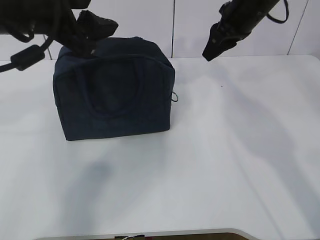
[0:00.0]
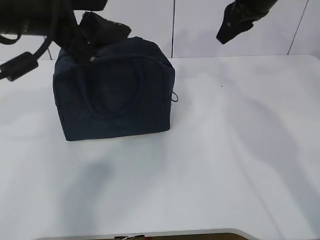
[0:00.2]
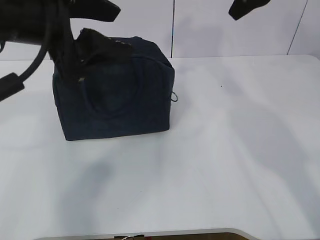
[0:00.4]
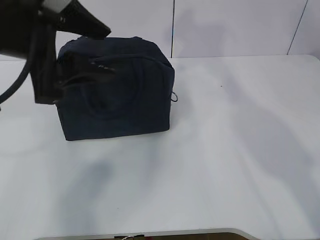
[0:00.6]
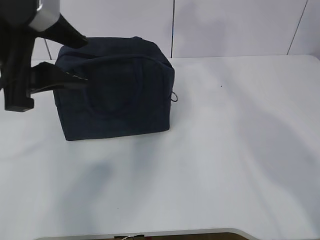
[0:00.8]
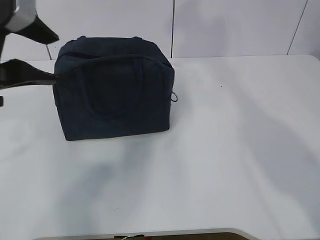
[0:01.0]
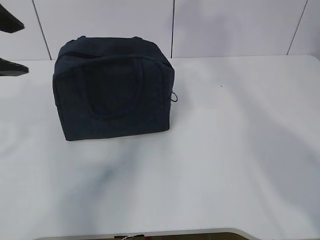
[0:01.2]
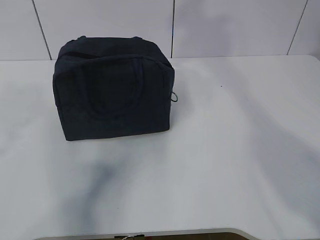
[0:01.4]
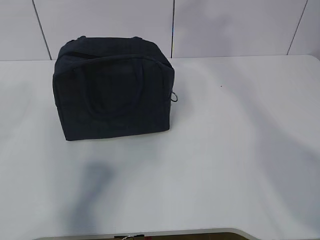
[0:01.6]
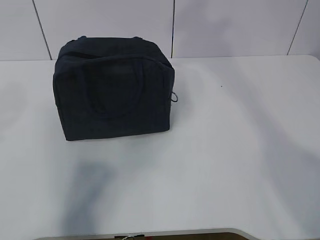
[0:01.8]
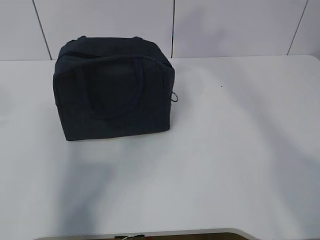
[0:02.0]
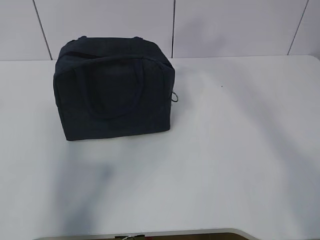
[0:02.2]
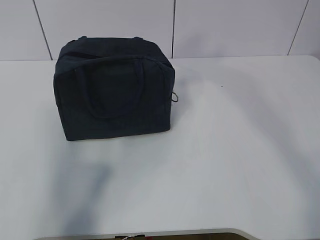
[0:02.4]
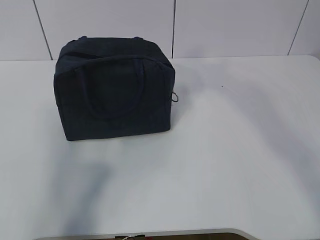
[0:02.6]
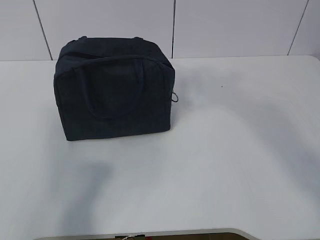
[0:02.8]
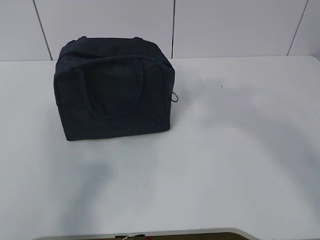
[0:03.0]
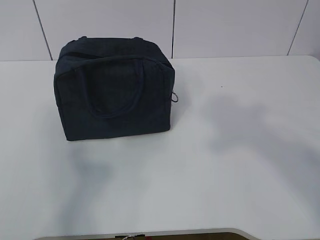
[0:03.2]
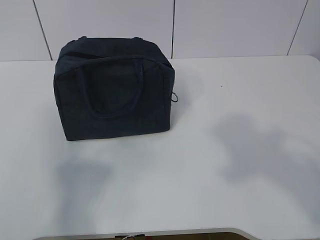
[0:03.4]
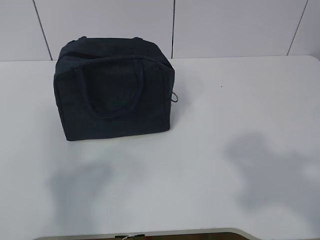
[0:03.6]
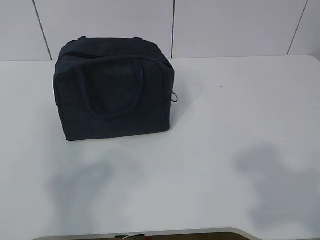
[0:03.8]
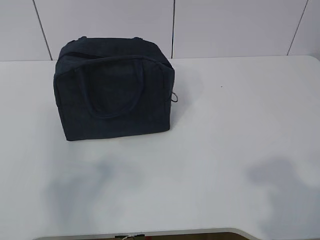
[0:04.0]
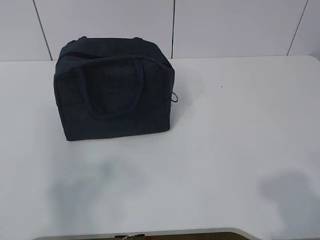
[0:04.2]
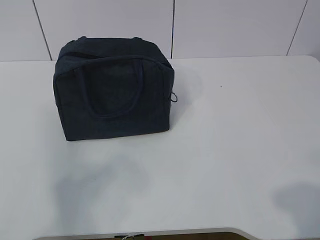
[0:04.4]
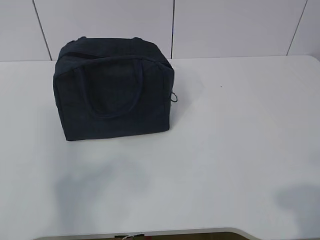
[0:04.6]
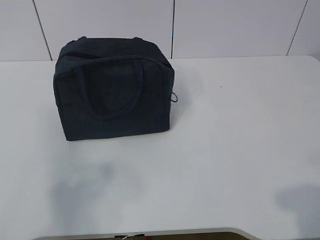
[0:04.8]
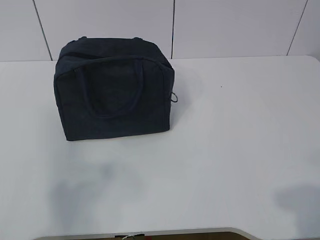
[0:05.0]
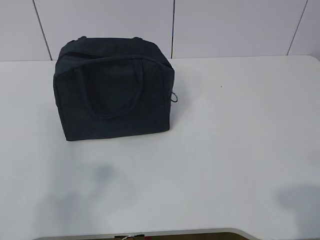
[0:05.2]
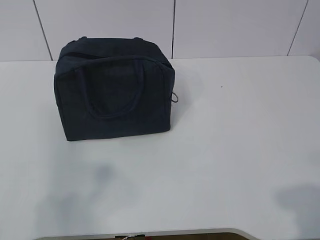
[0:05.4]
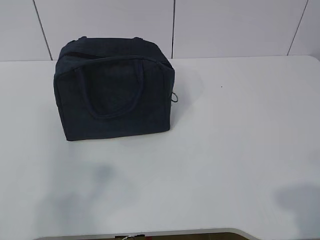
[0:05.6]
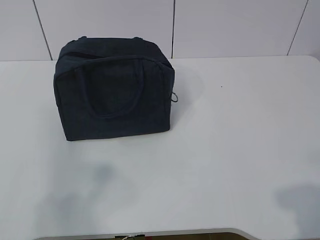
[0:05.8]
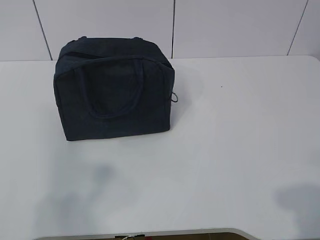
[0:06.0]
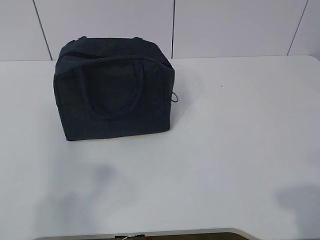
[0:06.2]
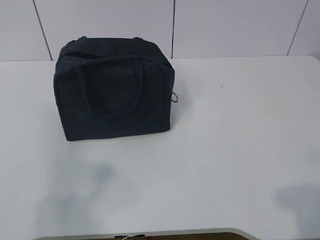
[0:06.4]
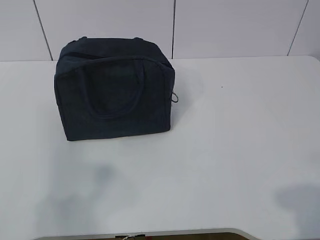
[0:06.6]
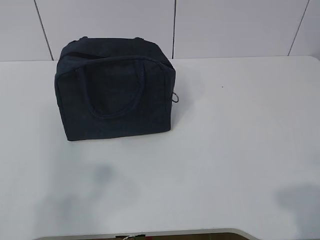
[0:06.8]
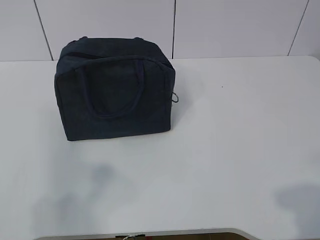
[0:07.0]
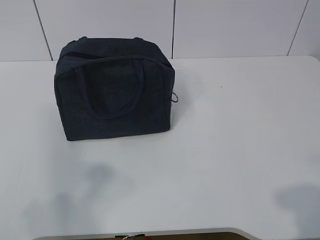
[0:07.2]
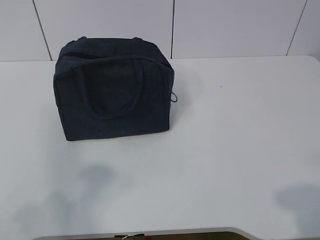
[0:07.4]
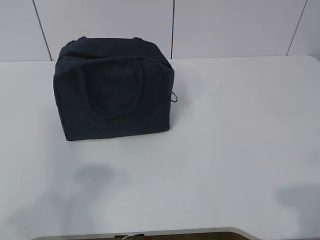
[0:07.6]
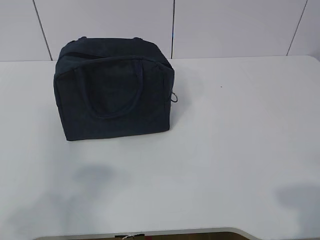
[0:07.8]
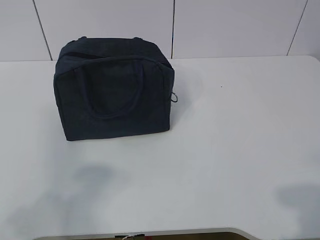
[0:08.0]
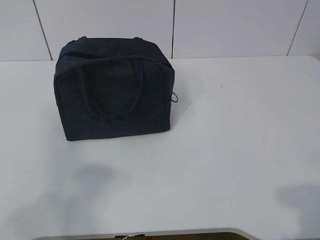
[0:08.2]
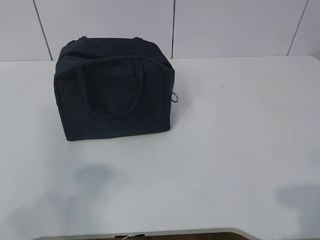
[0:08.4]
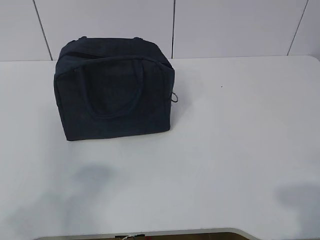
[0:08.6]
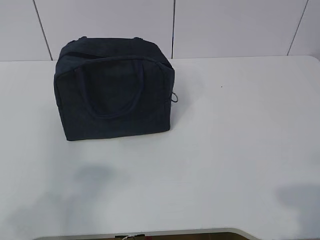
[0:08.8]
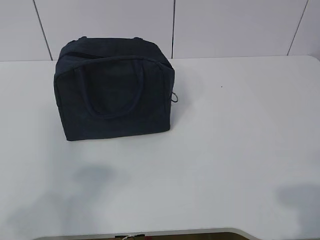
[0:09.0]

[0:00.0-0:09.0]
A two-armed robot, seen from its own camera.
0:00.0 to 0:01.6: The left gripper goes about 15 cm backward, to the left and upward. Meanwhile the right gripper moves upward and backward, some 30 cm.
0:01.6 to 0:03.0: The right gripper shifts about 25 cm backward. Meanwhile the left gripper shifts roughly 15 cm backward and to the left.
0:03.0 to 0:04.4: The right gripper goes approximately 25 cm downward.
0:07.6 to 0:09.0: Neither gripper changes place.

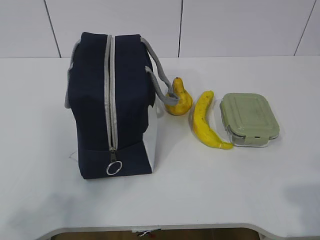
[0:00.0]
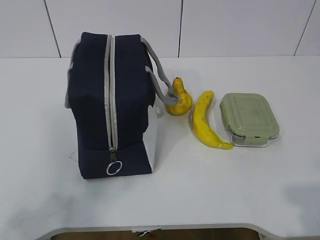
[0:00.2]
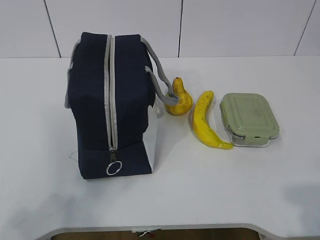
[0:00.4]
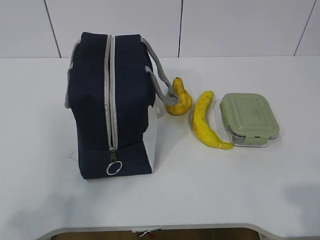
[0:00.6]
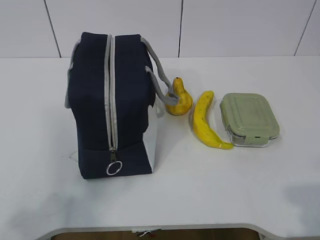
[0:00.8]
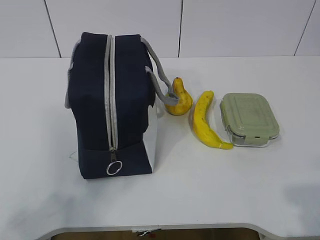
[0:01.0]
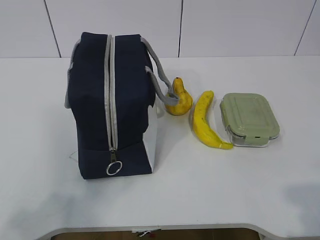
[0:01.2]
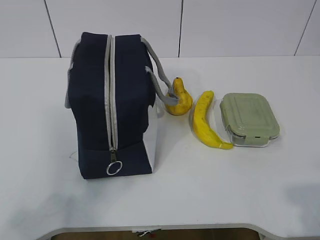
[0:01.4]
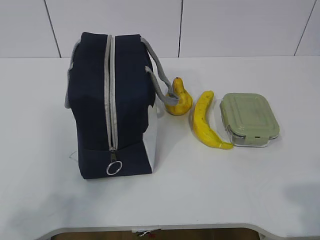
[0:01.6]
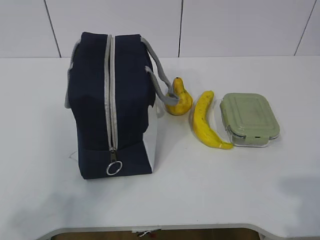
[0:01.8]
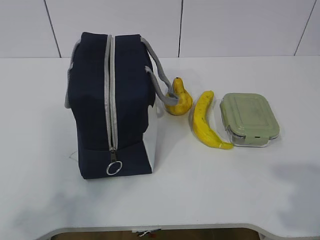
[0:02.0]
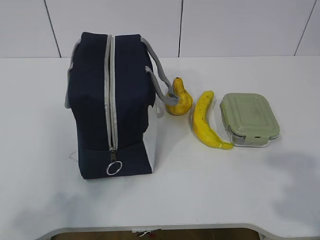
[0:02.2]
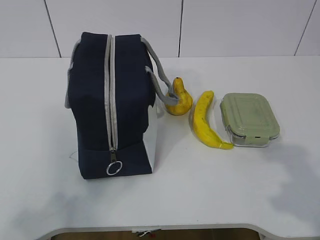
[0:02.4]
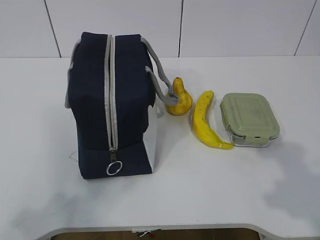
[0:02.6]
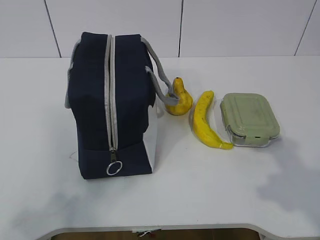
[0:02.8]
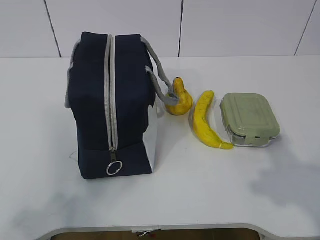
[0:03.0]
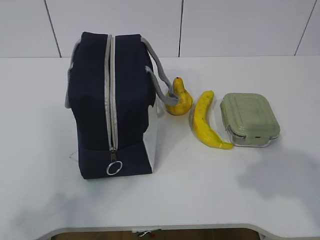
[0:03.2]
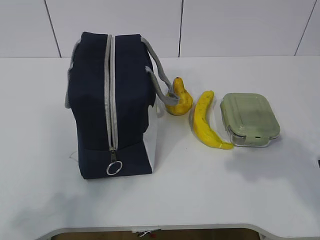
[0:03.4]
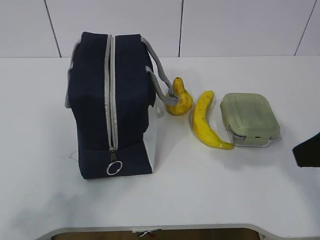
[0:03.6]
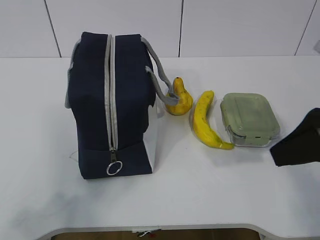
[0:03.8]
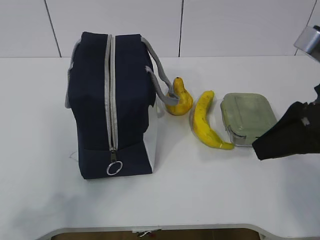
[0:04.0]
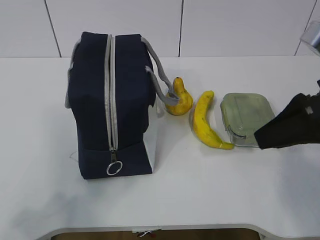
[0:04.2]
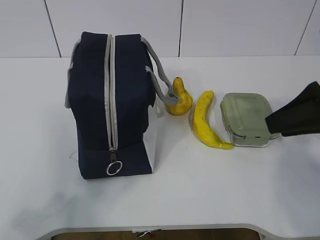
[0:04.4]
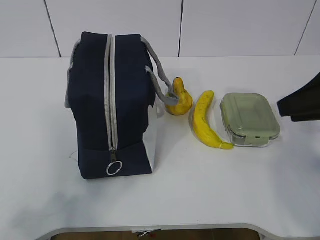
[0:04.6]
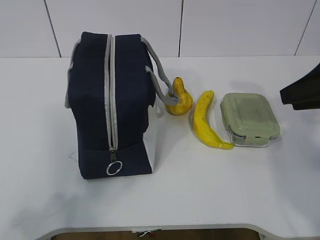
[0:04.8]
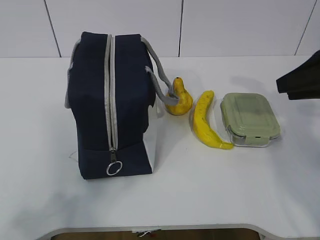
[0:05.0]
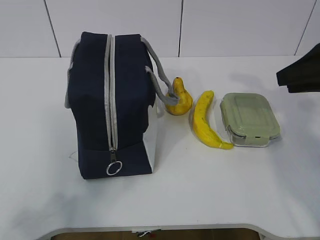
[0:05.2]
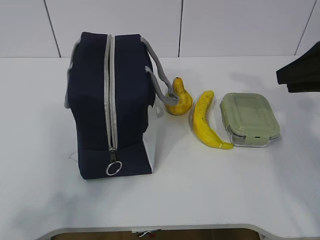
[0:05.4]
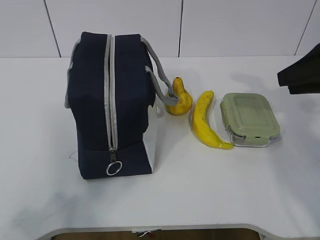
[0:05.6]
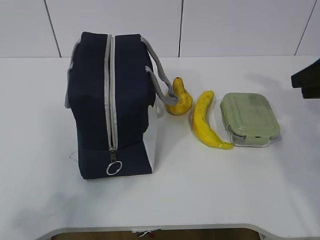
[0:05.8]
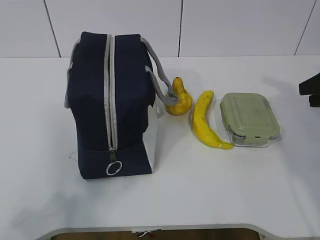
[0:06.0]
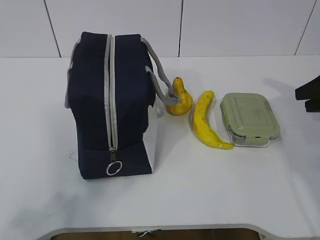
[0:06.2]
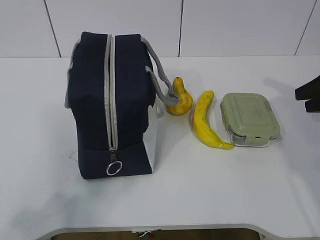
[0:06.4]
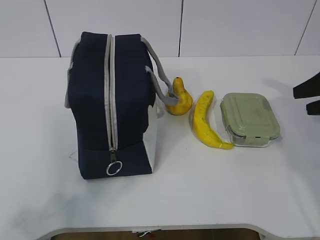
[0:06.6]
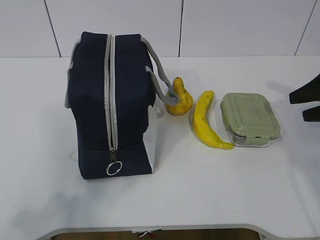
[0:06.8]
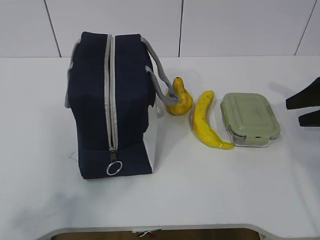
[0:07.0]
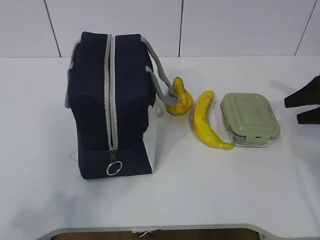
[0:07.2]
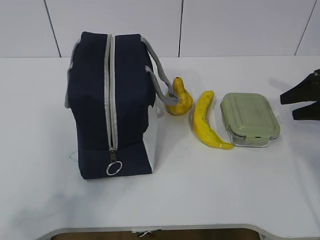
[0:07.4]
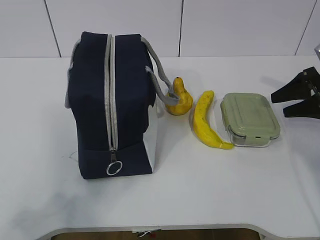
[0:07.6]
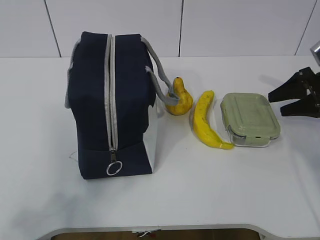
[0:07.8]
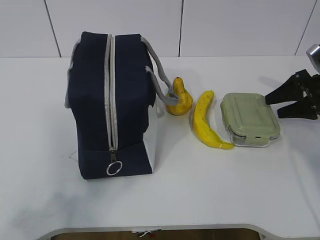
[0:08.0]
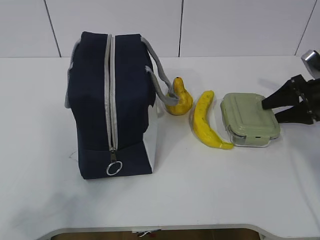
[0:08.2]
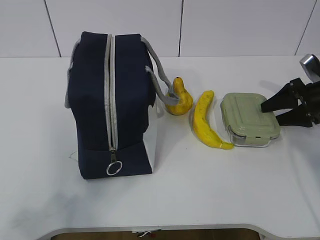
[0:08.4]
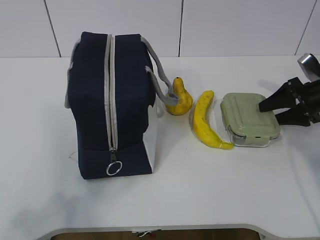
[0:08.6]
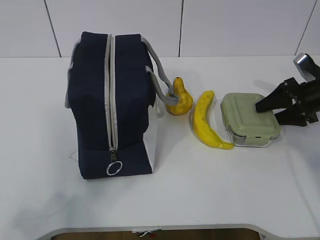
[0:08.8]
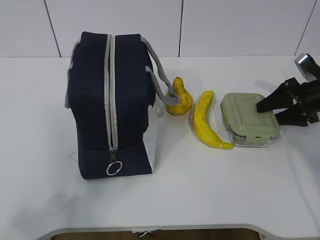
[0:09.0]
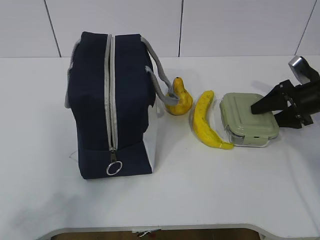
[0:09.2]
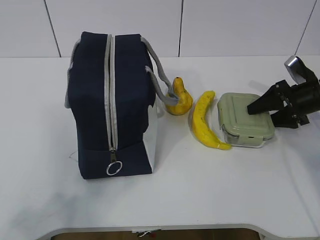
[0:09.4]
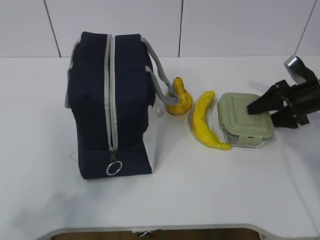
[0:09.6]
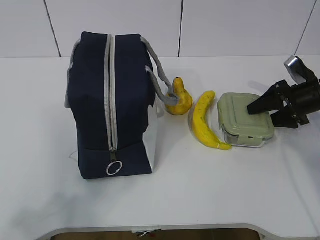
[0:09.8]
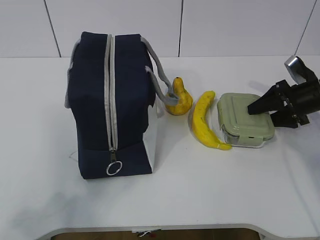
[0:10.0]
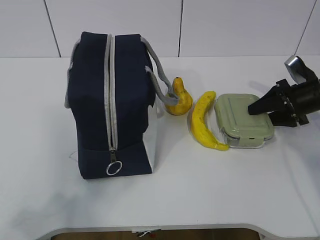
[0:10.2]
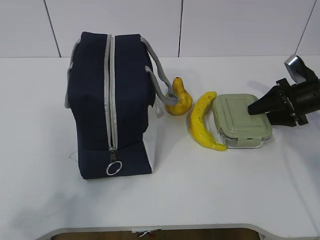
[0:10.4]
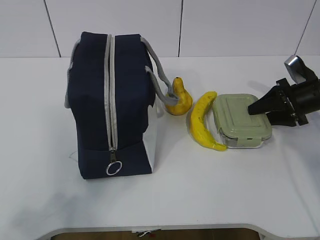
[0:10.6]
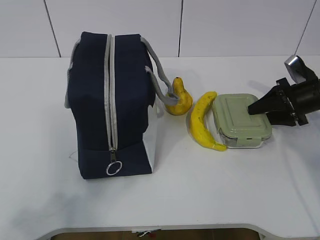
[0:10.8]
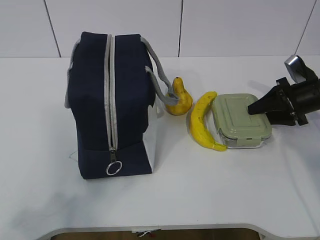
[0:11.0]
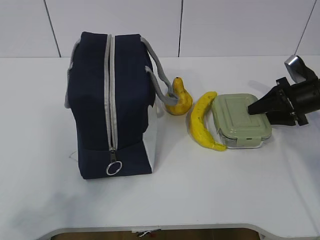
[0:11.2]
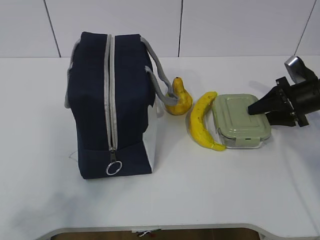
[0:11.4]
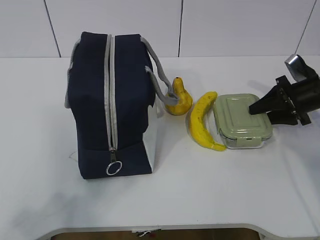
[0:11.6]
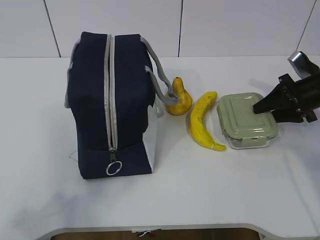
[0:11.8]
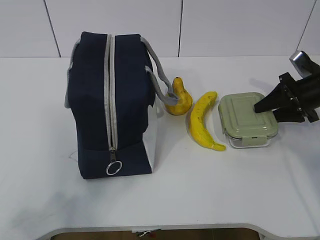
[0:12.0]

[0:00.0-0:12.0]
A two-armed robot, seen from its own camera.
Step, 0:00.0 to 0:09.2: Grab the lunch box with your right hand.
0:01.6 to 0:03.0: The right gripper heads forward, covering about 10 cm.
0:03.0 to 0:04.4: The right gripper shifts some 15 cm forward.
0:04.4 to 0:06.0: The right gripper heads to the right and forward, covering some 15 cm.
0:06.0 to 0:07.6: The right gripper is displaced forward and downward by about 10 cm.
0:07.6 to 0:12.0: The grippers make only small movements.

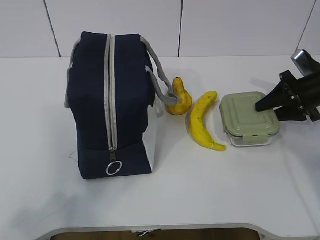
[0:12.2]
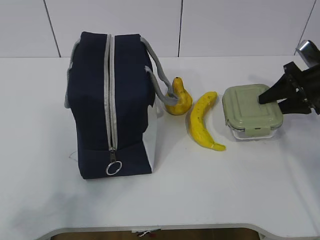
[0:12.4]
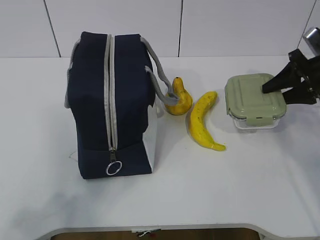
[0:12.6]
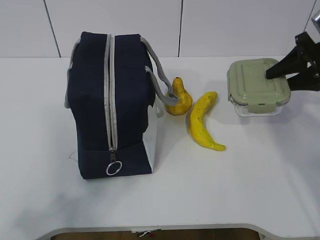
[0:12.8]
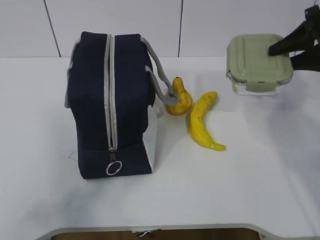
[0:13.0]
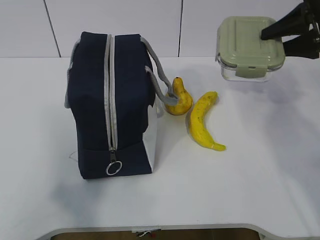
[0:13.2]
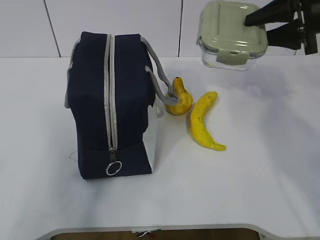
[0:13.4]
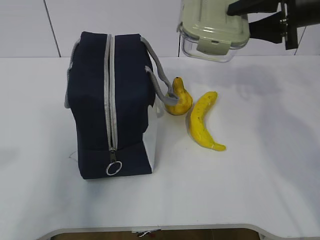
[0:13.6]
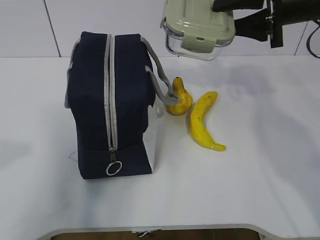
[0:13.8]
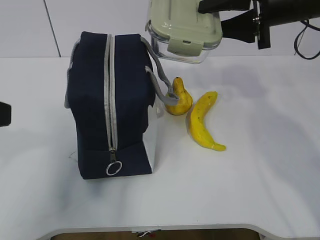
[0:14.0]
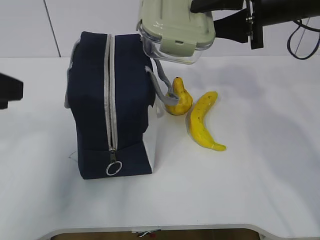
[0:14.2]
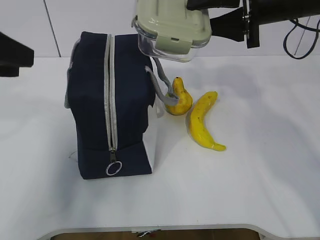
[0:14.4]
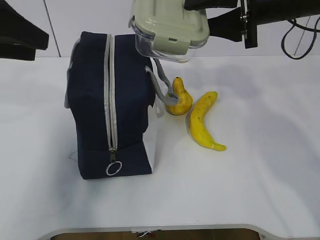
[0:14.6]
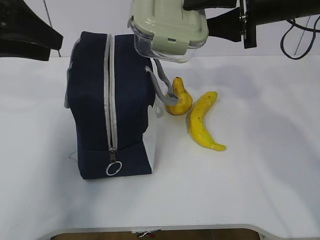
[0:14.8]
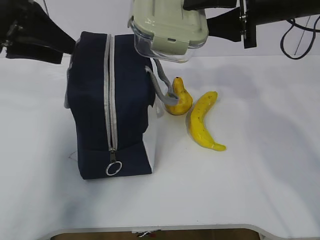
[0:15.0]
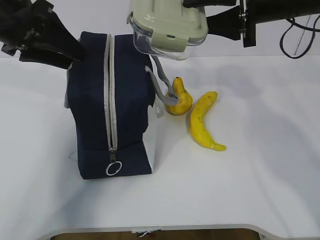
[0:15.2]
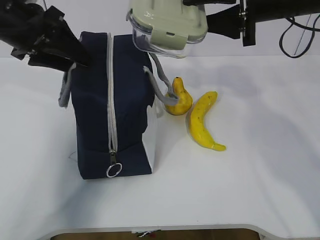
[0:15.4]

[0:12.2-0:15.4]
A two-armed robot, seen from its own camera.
0:12.2 to 0:13.8: The right gripper moves upward and to the left, approximately 20 cm. Meanwhile the left gripper travels forward by about 10 cm.
0:13.8 to 0:15.4: The left gripper travels forward by roughly 25 cm.
